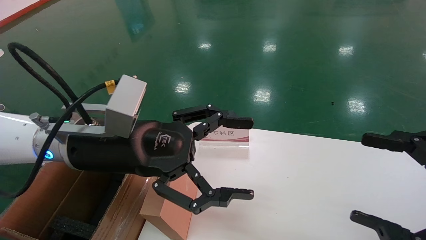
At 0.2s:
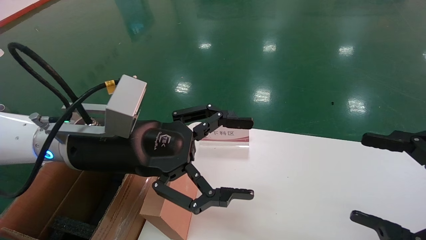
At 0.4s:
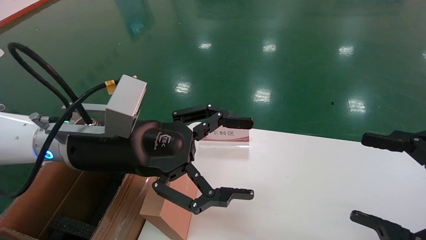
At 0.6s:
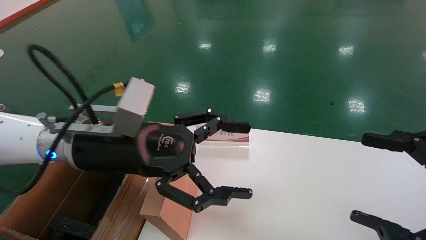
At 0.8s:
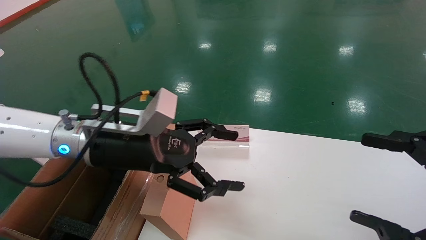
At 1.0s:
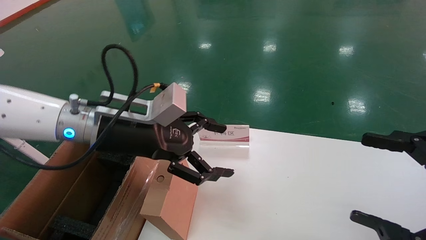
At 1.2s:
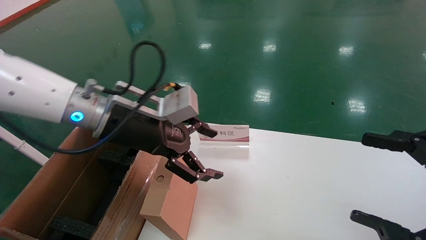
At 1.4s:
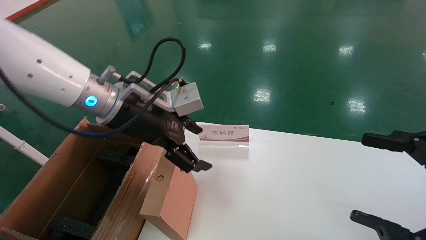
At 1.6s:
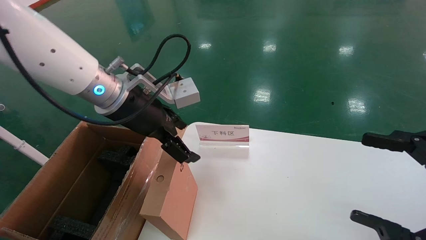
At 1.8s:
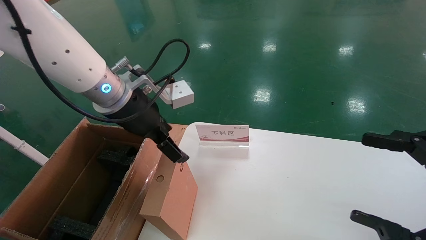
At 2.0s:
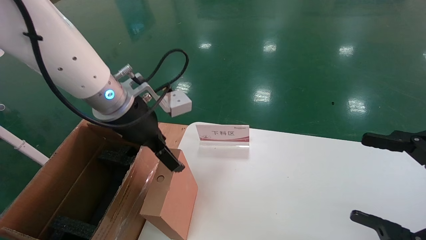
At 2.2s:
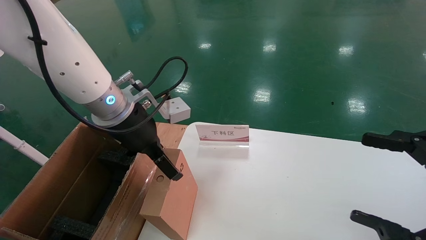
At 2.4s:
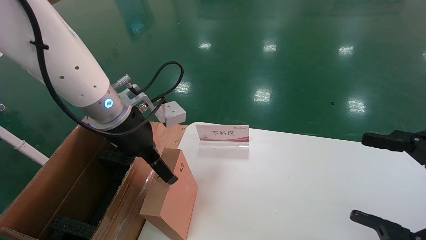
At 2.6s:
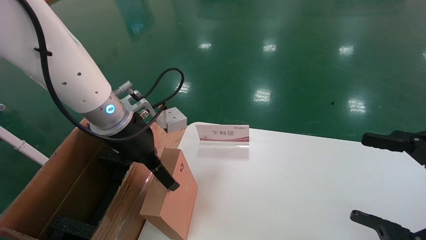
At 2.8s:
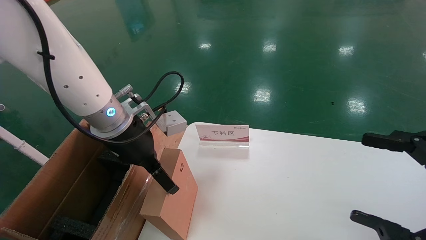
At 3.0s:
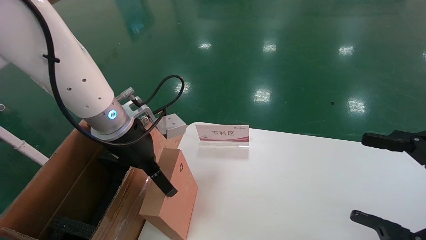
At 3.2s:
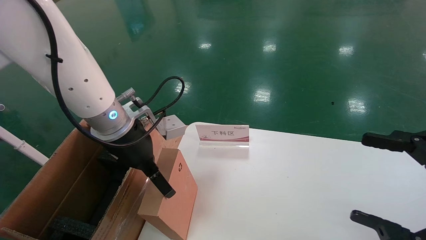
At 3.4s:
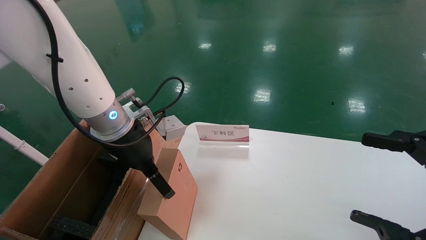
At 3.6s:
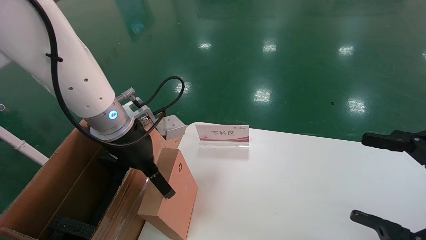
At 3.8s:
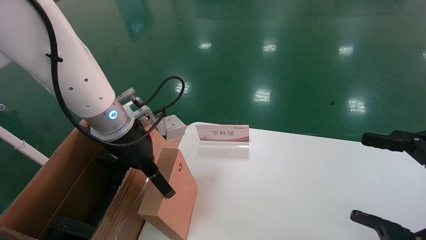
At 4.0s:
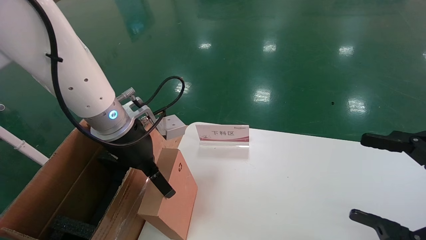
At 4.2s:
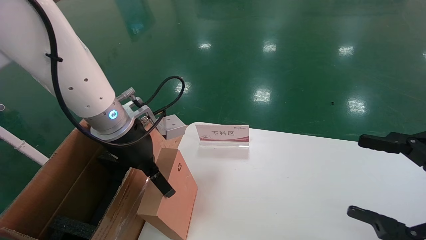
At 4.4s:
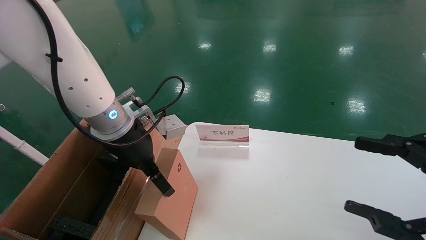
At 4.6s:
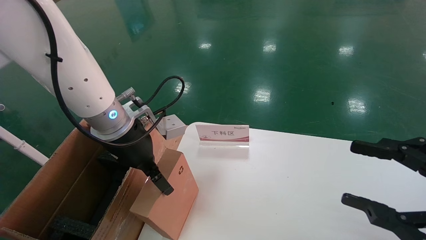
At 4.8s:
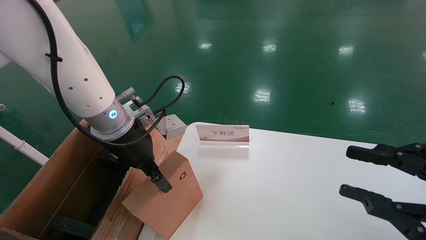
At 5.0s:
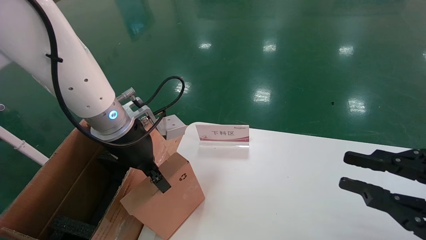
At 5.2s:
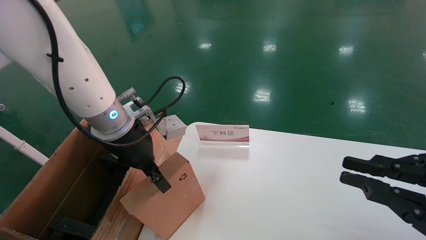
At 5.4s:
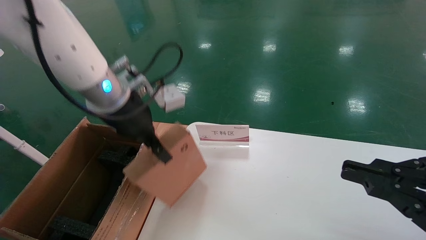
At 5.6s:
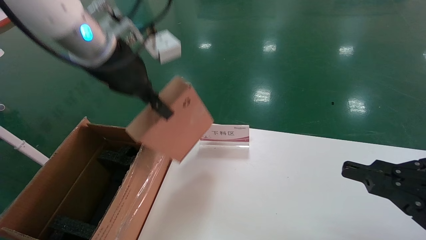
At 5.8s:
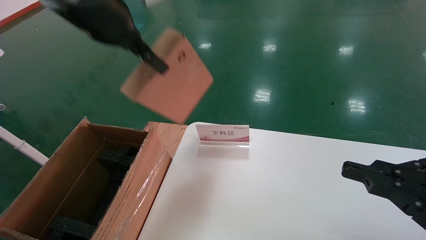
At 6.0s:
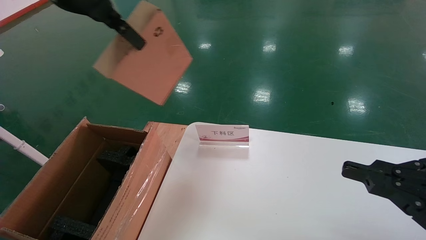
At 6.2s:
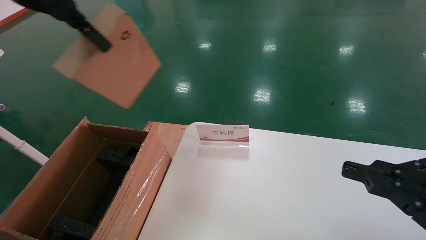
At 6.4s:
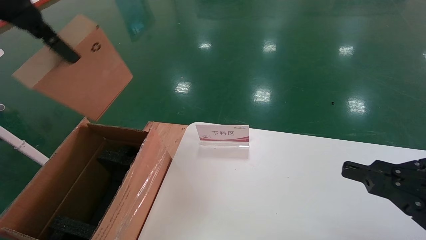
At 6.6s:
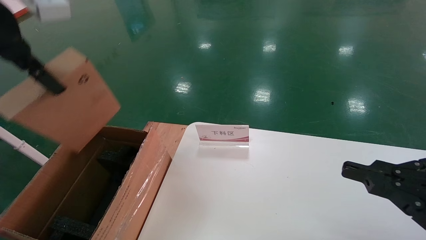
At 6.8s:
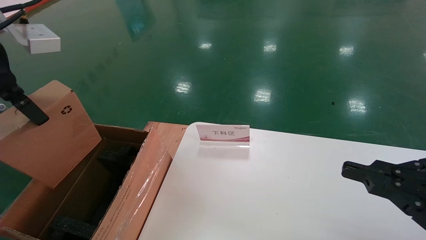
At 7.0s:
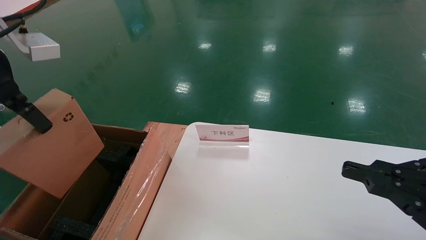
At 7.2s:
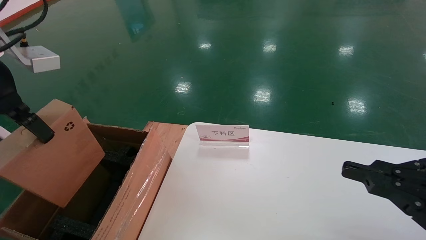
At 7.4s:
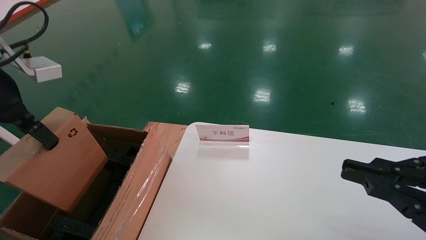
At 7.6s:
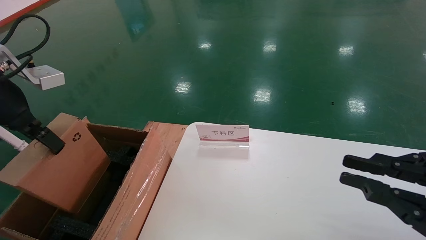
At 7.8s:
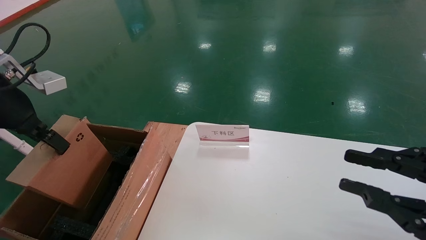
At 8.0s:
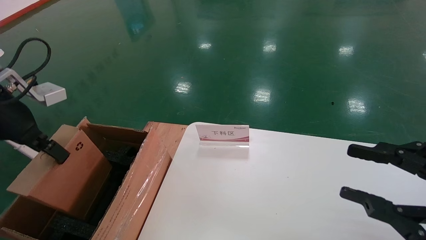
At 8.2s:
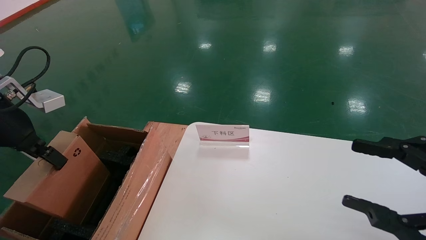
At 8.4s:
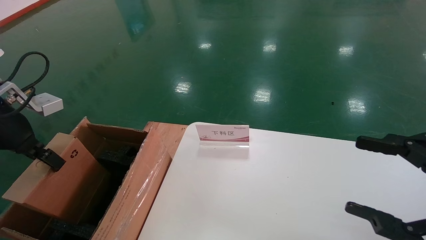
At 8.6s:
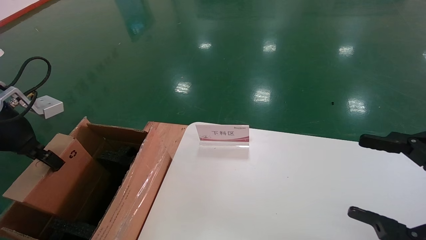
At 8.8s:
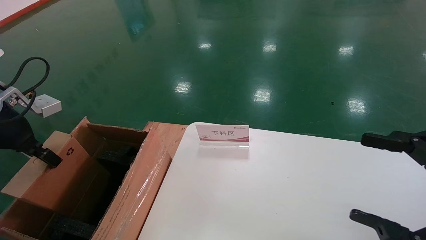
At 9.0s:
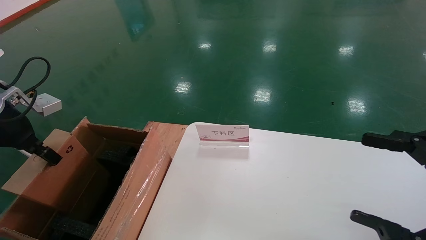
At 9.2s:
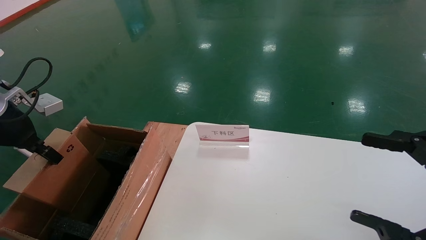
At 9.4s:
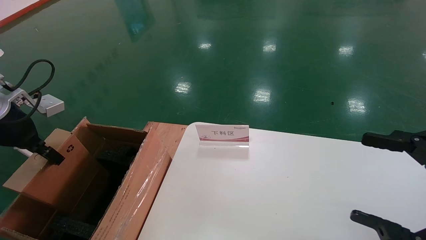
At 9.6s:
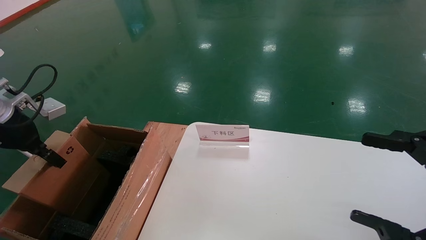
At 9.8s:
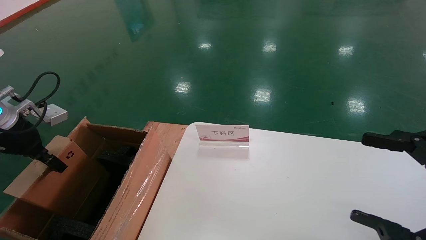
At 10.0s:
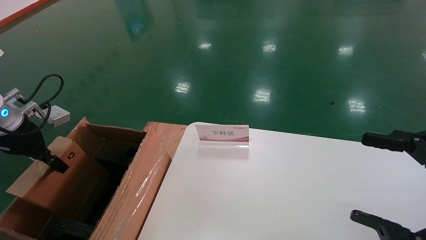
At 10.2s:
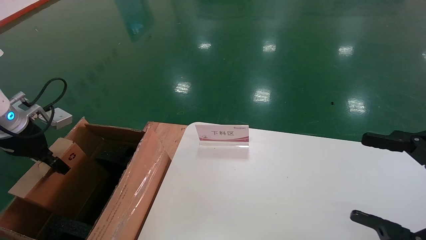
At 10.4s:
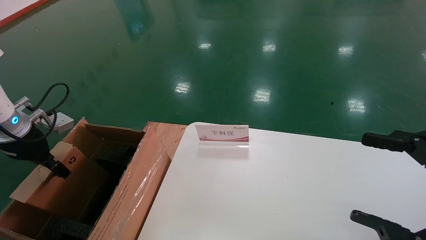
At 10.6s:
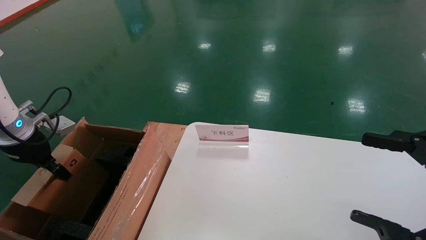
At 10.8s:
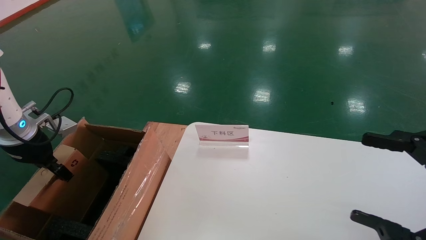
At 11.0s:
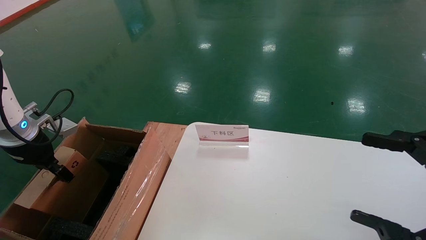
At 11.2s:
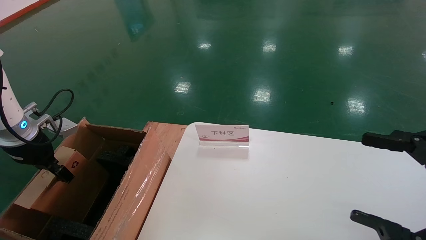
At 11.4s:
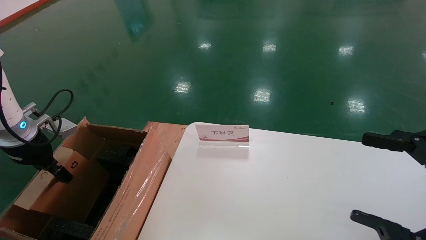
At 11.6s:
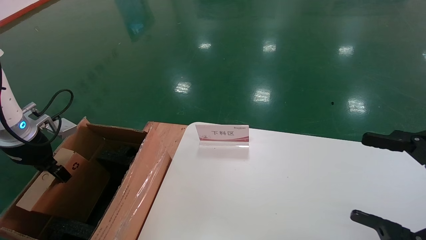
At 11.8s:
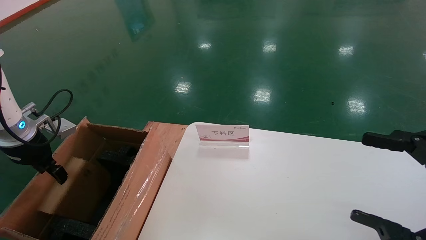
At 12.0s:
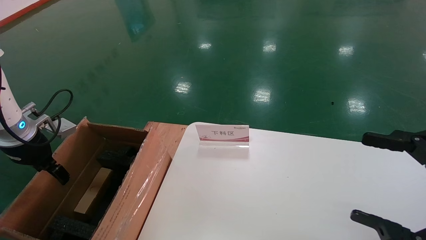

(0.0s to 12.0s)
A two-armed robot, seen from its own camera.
Task of the whole recording: pick up the small cardboard box and load it into the large cardboard box.
Step, 0.8s - 4.8s: Pick up the mouse and power cord box.
0.0s - 1.6s: The left gripper travels forward by approximately 10 cm.
3.0s - 4.4s: Neither gripper changes place.
4.4s - 6.0s: The right gripper closes its fingers. Meanwhile the left gripper moves upward, approximately 25 cm, and closes up.
6.0s - 7.6s: The left gripper goes approximately 20 cm downward and to the left.
7.6s - 9.0s: The right gripper opens its fingers; the left gripper goes approximately 10 cm downward and to the left.
9.0s - 10.4s: The left gripper goes about 5 cm downward.
10.4s - 12.0s: The left gripper opens its fingers.

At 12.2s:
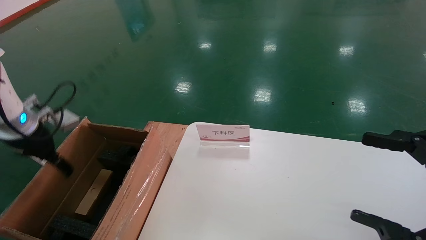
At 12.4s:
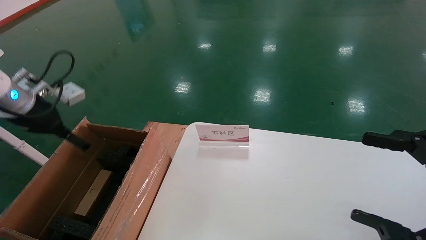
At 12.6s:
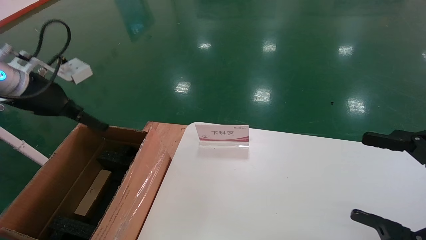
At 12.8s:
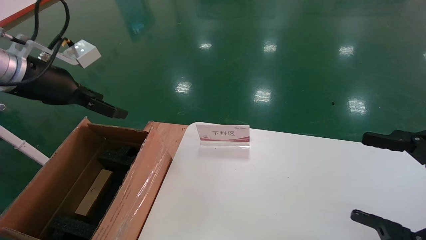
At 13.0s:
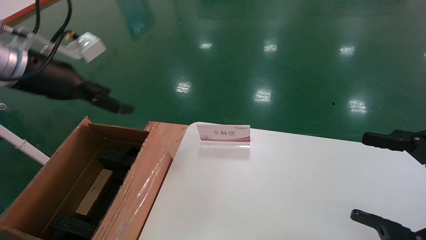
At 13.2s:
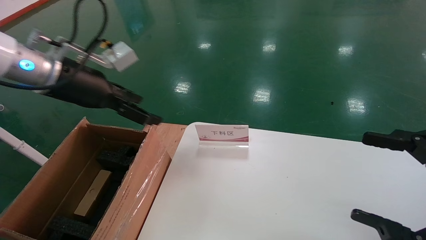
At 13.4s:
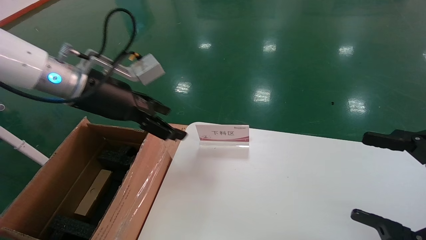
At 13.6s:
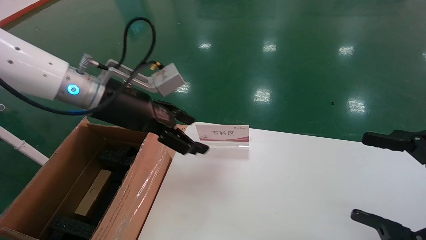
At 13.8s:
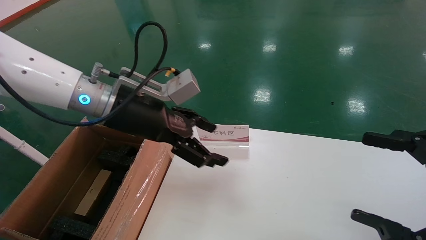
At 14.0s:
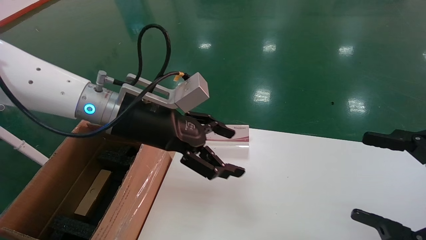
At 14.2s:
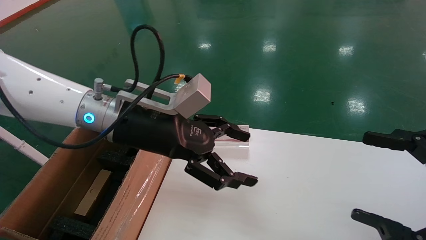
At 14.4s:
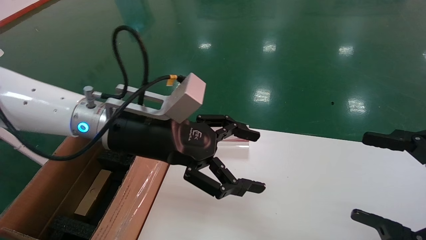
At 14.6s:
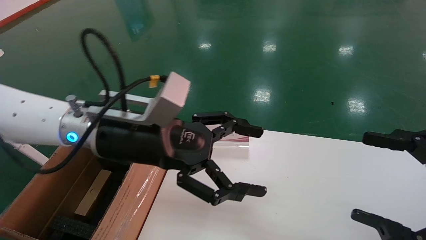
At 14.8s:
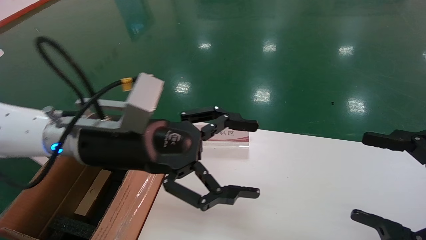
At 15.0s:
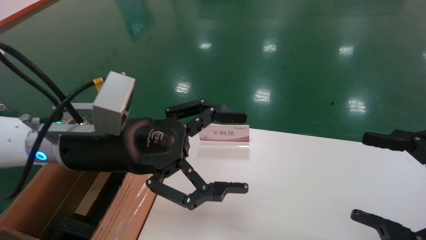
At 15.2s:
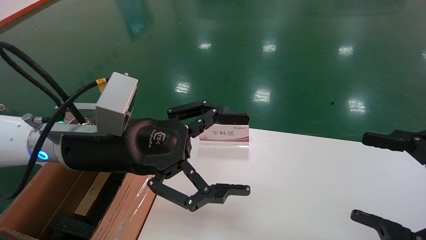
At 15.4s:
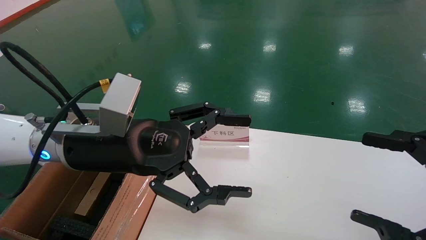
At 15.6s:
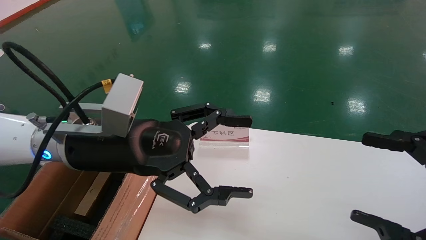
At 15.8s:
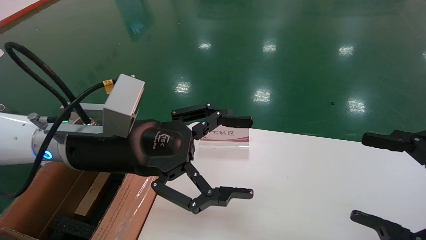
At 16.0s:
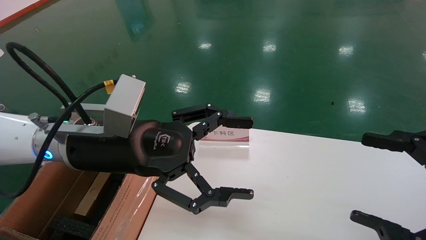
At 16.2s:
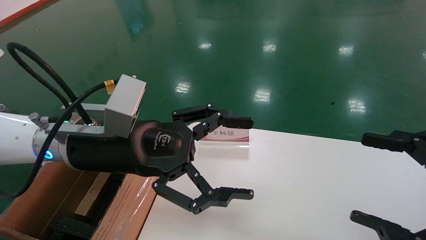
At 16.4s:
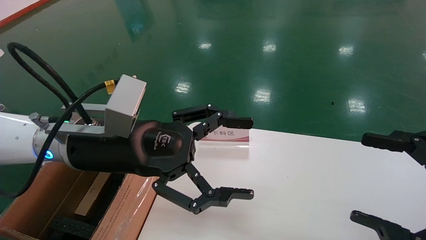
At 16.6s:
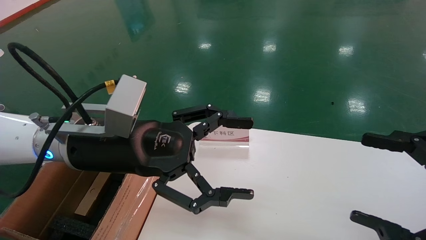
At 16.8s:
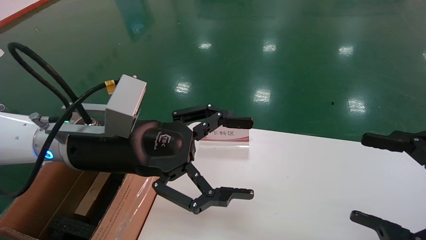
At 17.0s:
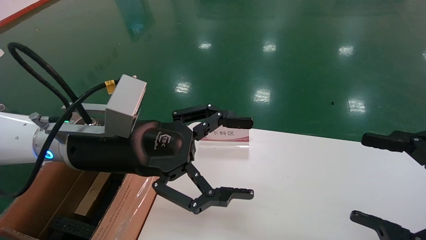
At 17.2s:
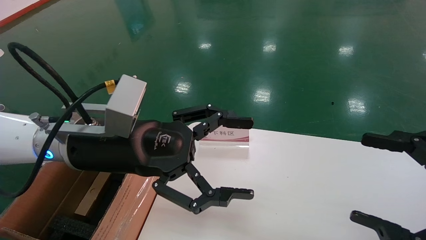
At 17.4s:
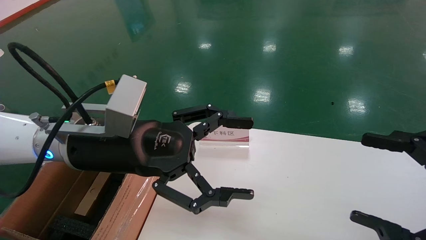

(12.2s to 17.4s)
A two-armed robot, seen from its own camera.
Task of the whole recording: pick up the small cardboard box and load it into the large cardboard box.
12.2s - 14.0s: The left gripper travels to the right by approximately 25 cm.
14.0s - 15.6s: The left gripper shifts approximately 5 cm backward.
15.6s - 17.4s: Both grippers stay about where they are.
